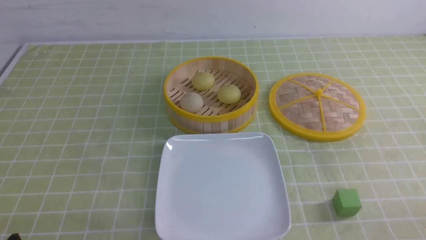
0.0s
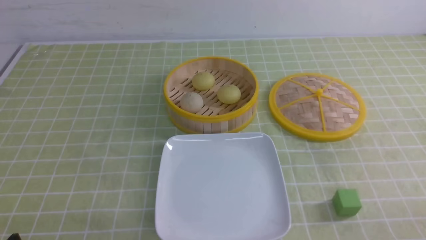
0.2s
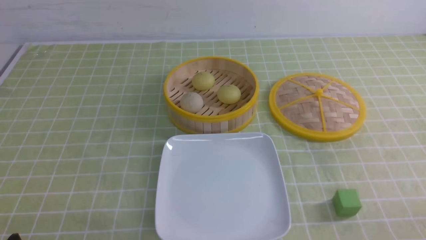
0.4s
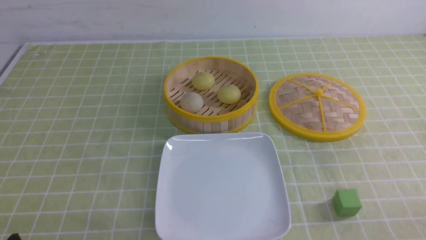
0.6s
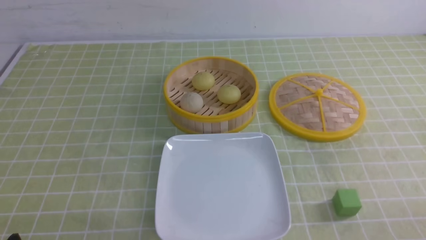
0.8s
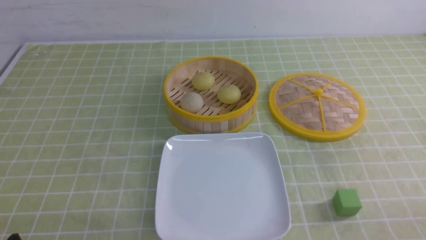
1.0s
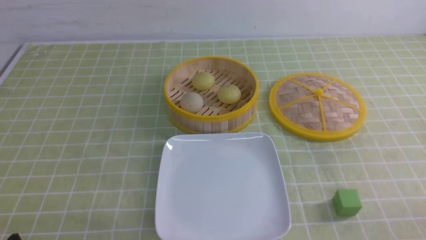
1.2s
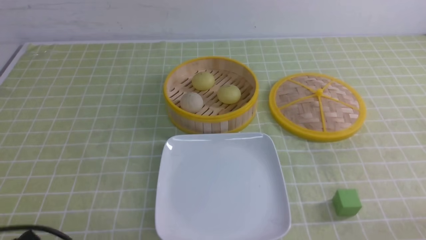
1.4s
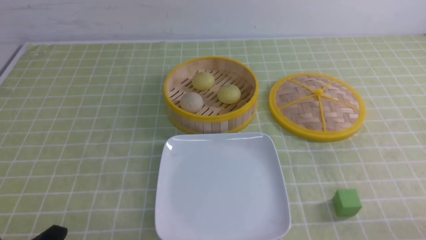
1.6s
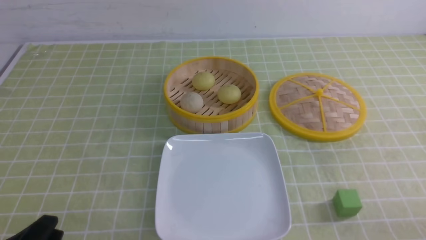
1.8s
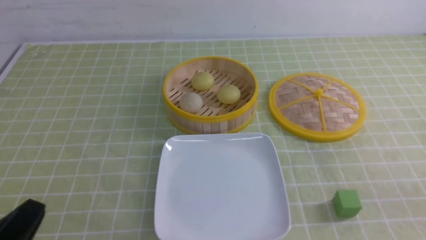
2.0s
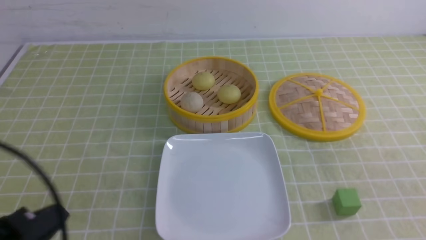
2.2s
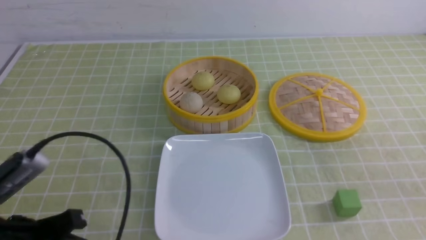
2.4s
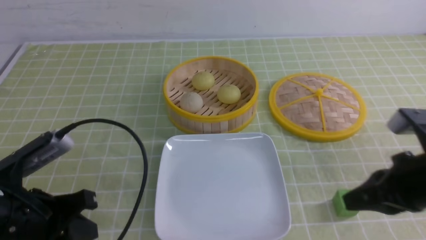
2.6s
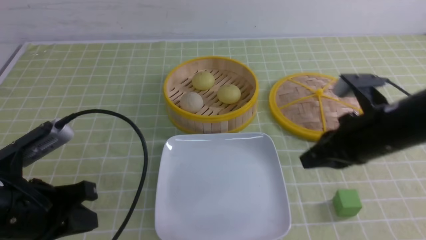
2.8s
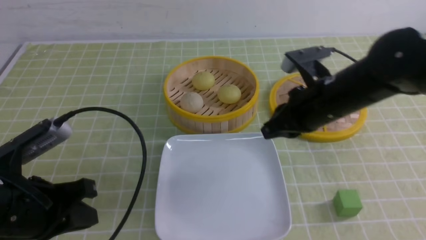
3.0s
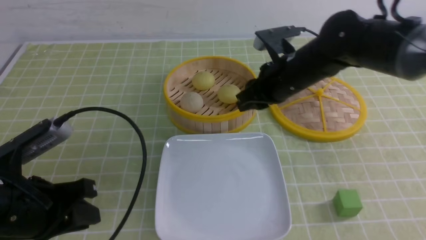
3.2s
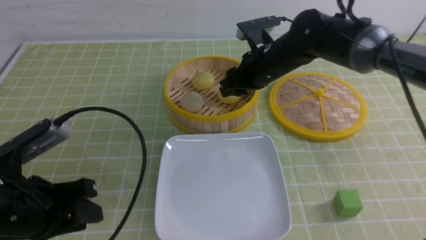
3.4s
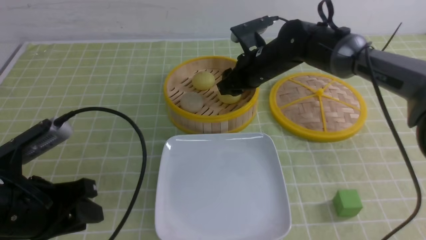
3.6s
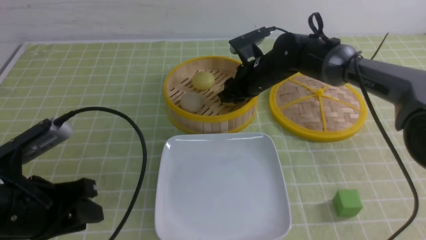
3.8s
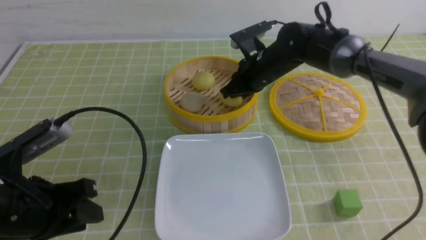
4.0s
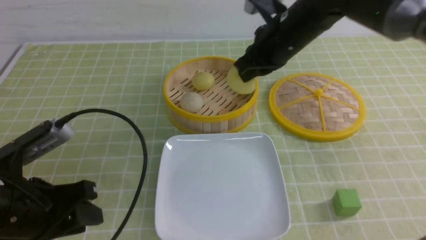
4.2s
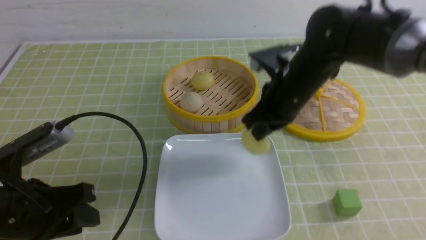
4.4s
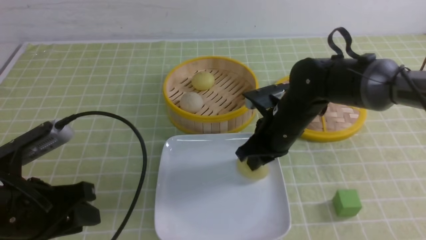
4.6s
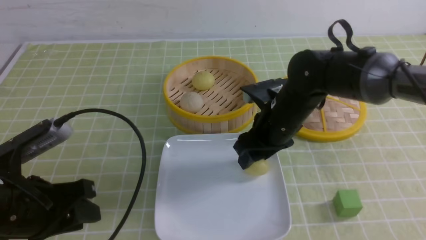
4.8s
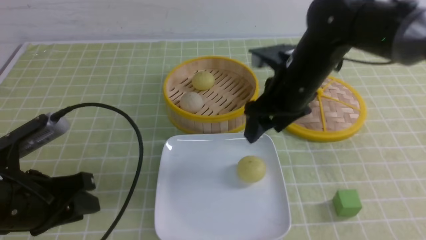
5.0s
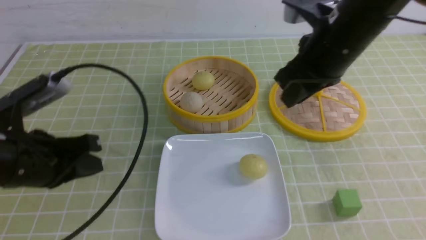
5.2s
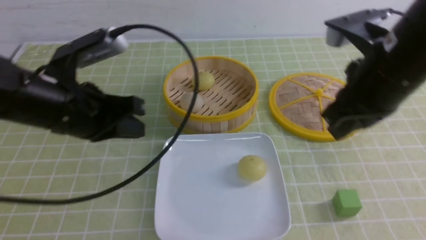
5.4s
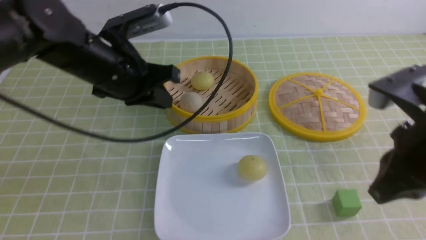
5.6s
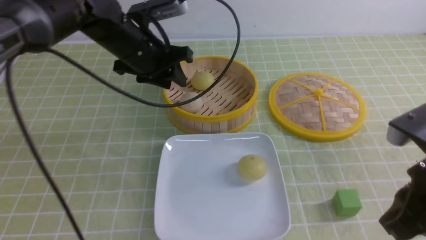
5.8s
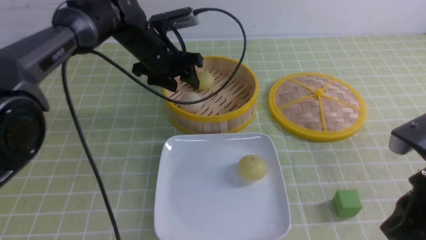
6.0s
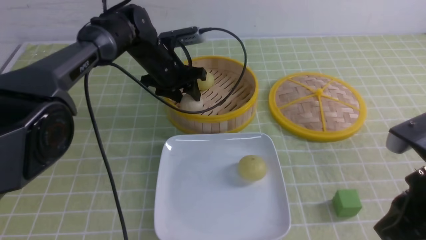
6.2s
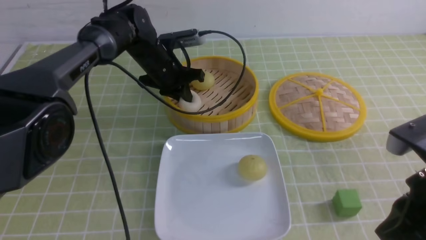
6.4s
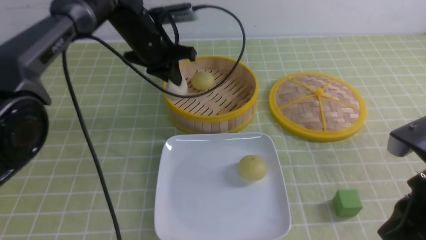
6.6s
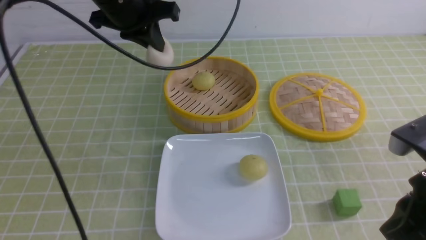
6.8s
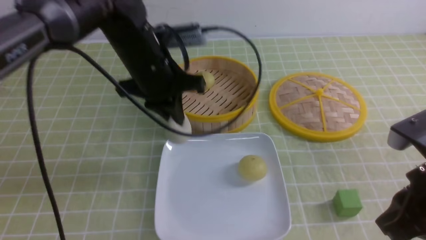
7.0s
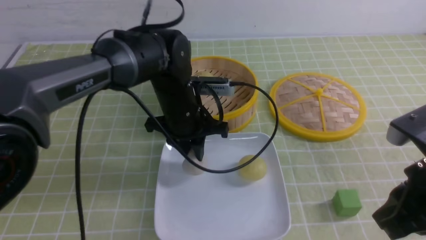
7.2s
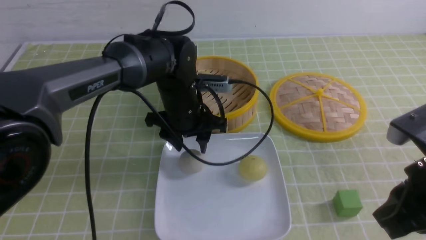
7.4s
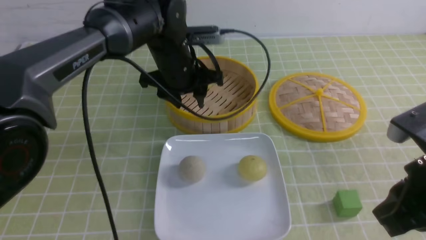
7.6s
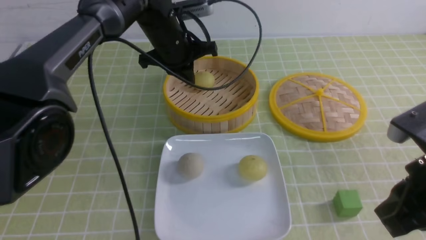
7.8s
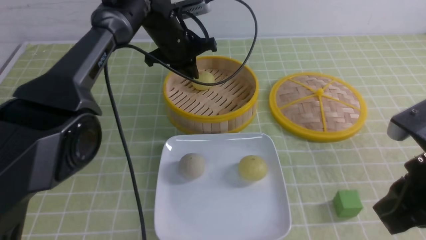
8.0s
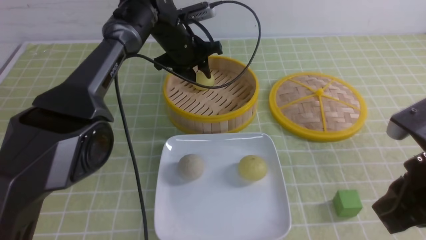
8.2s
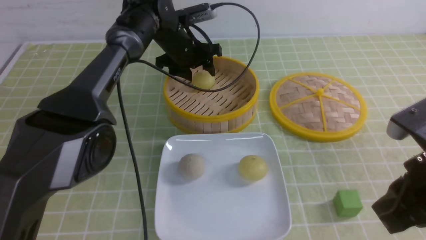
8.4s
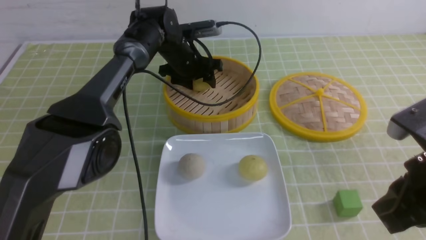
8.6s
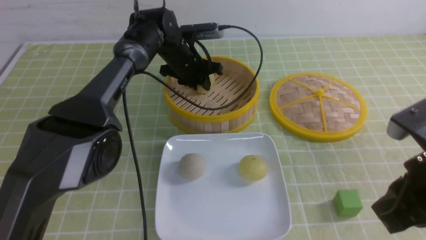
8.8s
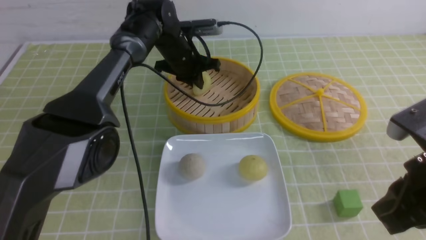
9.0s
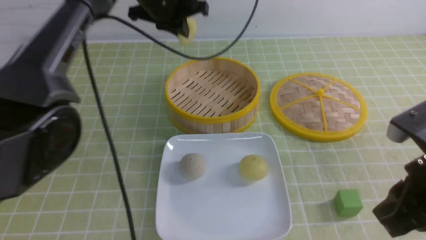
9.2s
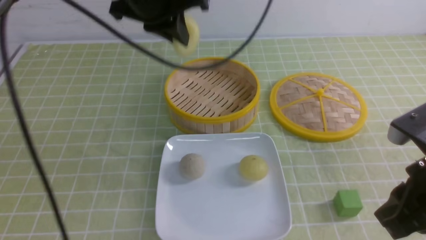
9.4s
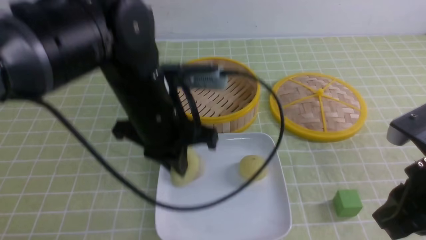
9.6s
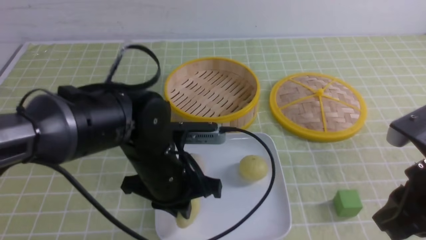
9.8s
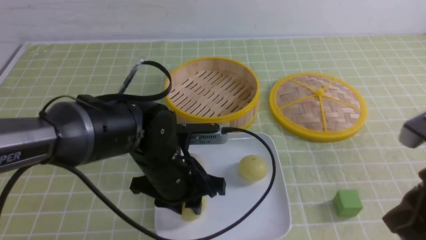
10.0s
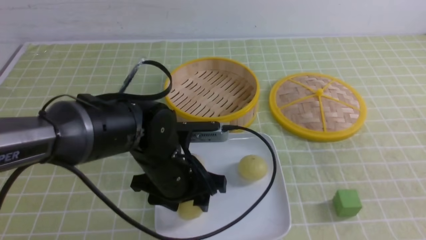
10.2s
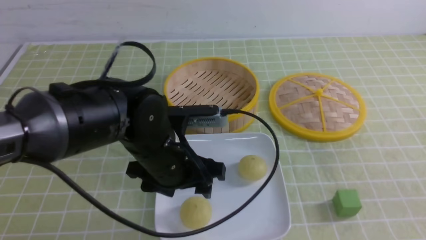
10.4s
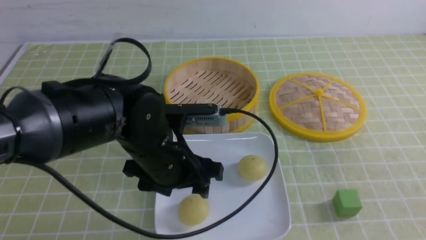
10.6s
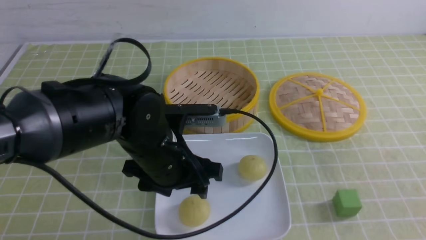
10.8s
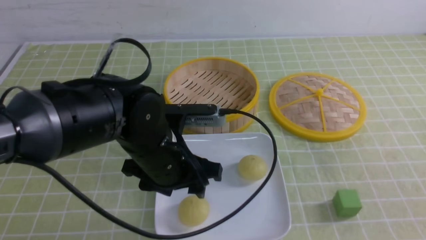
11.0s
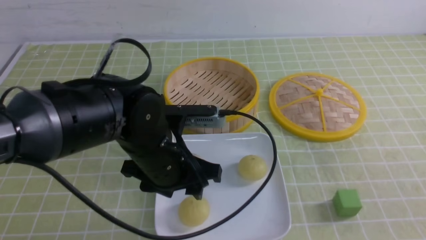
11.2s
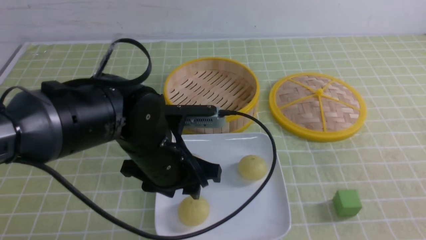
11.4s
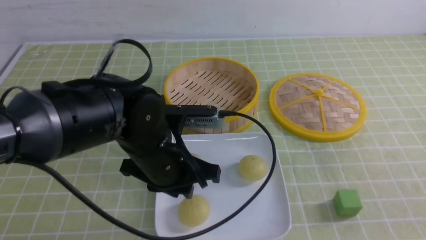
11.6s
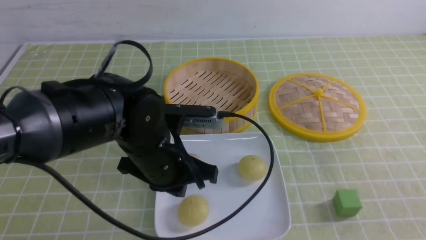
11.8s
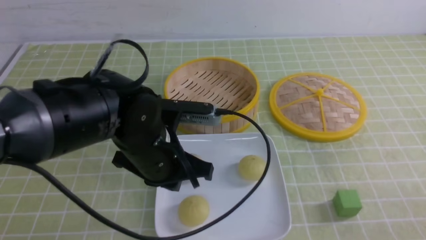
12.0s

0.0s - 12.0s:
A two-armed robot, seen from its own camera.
Step, 0.0s - 3.8s: use the right arm to grab the steamed stuffed bun that is closest to it.
Step, 4.0s - 4.8s: use the right arm to put the steamed stuffed bun into the plate.
Step, 5.0s - 6.2s: use the left arm to grab the steamed stuffed bun that is closest to it.
Step, 6.6s - 7.2s: use the left arm to put the steamed stuffed bun into the plate.
Step, 7.4s - 8.8s: use the left arm to grab the steamed stuffed bun that is closest to it.
Step, 9.0s - 10.2s: use the left arm to put the steamed stuffed bun into the plate.
1.6s - 3.0s: The right gripper moves forward and to the left, roughly 30 cm, while the left gripper shifts some 15 cm forward and upward.
3.0s - 4.4s: The right gripper travels forward and back again, approximately 15 cm each way, and opens, then closes again.
4.4s - 6.0s: The left gripper moves forward and to the right, some 30 cm, and closes and opens again; the right gripper shifts about 25 cm backward and to the right, and opens, then closes again.
6.0s - 7.6s: The left gripper goes backward and returns, some 10 cm each way, and closes, then opens again.
7.6s - 9.0s: The left gripper travels forward by roughly 10 cm, and closes.
9.0s - 10.4s: The right gripper heads backward and to the right, covering roughly 10 cm; the left gripper travels backward by some 25 cm, and opens.
10.4s - 12.0s: The right gripper goes some 10 cm downward, while the left gripper closes.

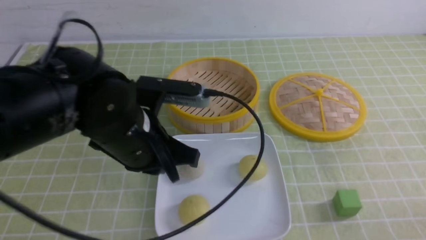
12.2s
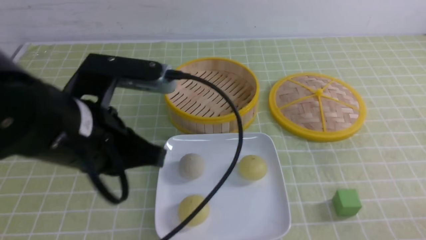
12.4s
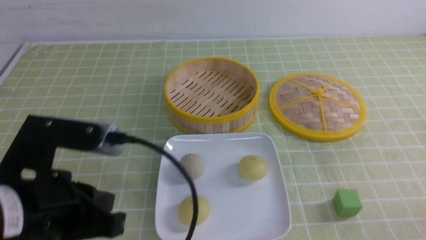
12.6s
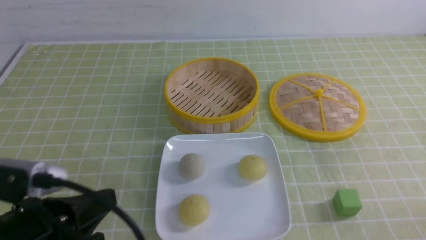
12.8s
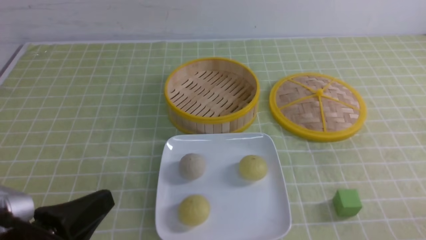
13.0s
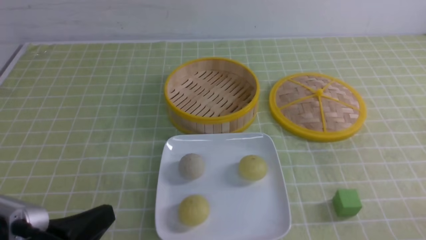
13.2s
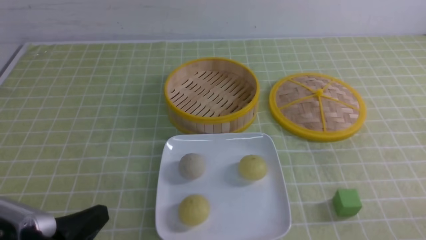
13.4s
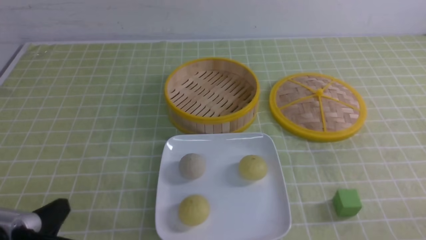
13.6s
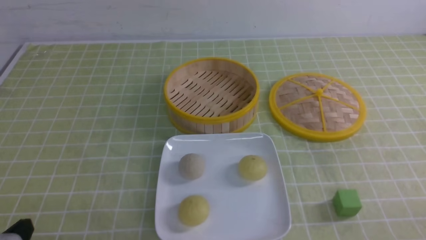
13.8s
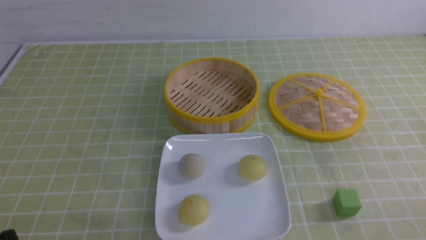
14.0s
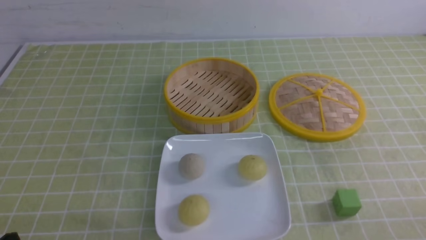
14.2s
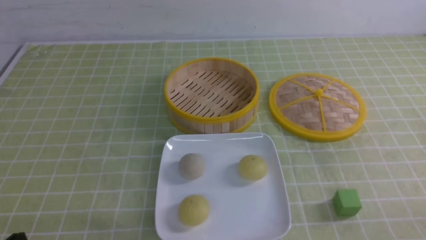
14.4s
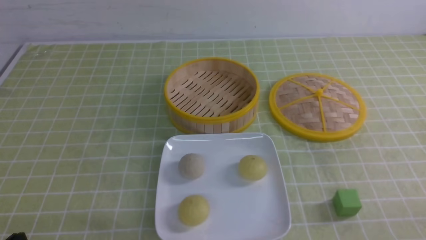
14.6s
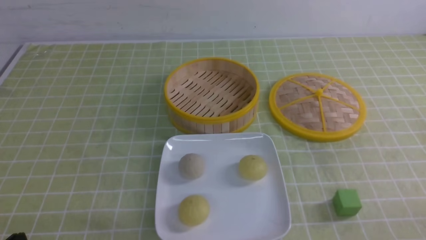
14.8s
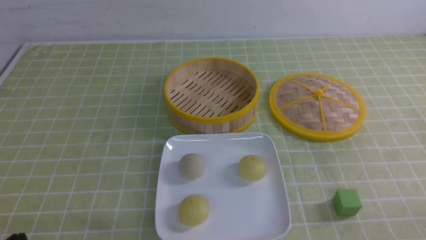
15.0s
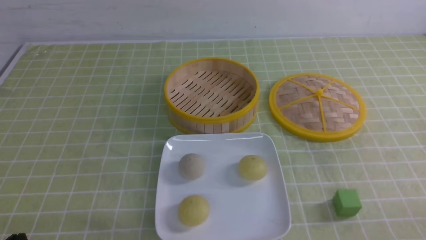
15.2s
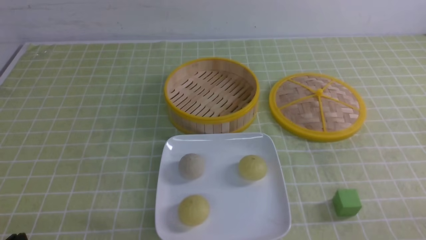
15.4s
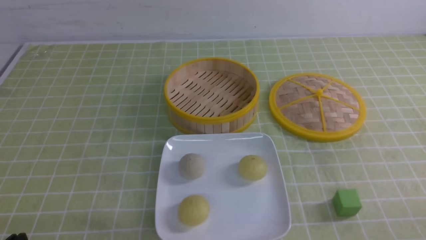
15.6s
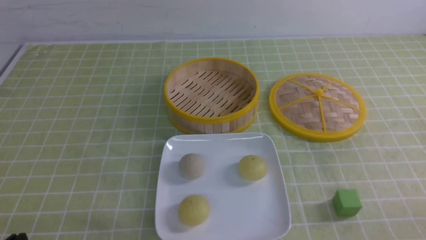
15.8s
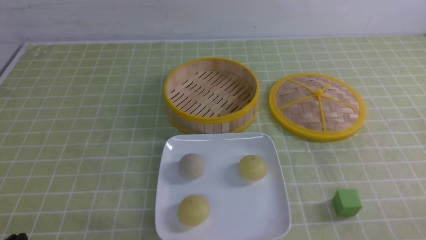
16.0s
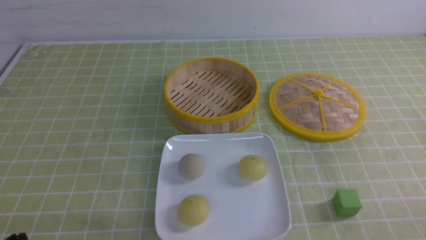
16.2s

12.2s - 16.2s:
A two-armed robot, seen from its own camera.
12.2s - 13.6s: The left gripper shifts about 20 cm backward, to the left and downward.
13.6s - 14.8s: There are only small adjustments of the grippers.
14.8s - 16.2s: Both grippers stay about where they are.
